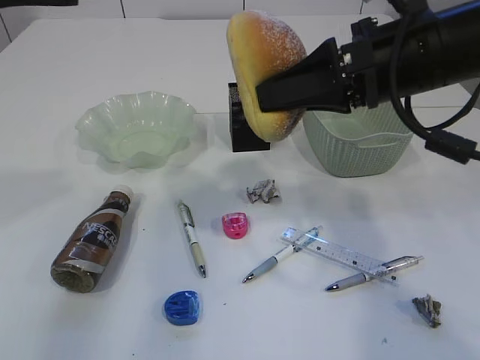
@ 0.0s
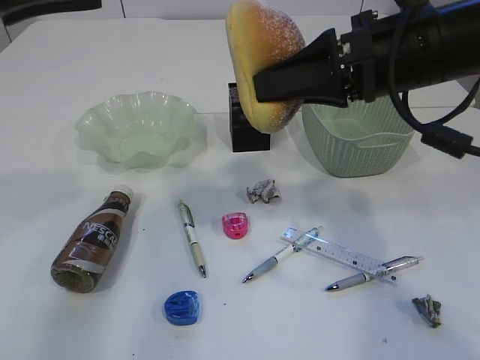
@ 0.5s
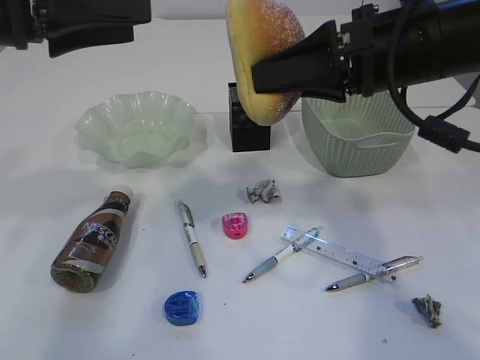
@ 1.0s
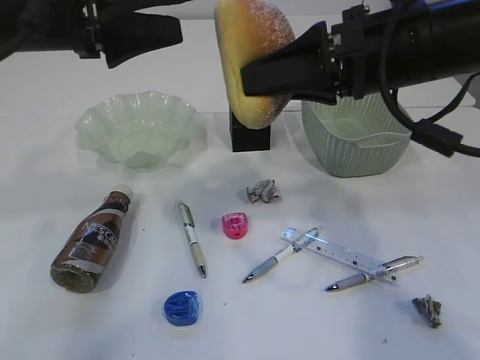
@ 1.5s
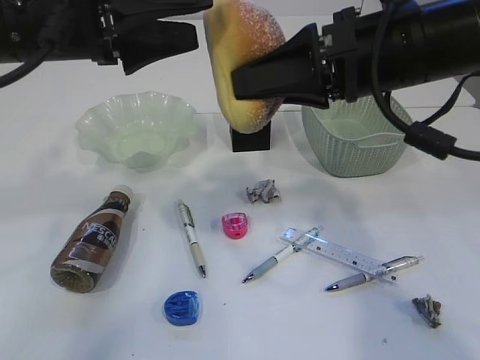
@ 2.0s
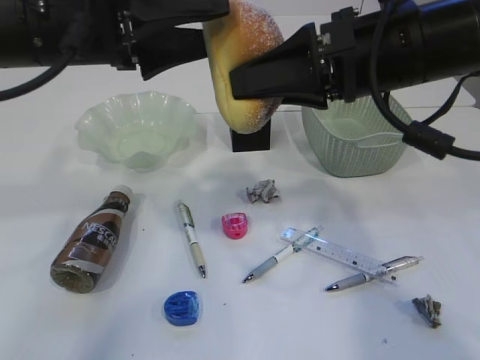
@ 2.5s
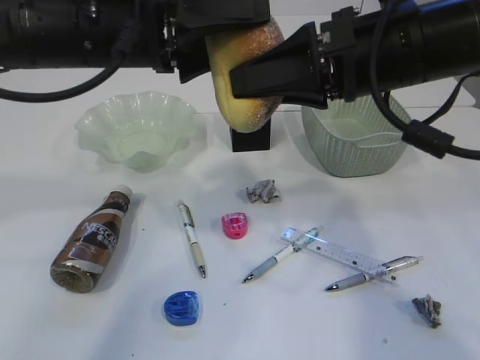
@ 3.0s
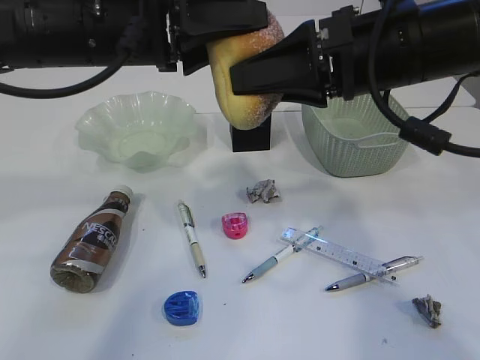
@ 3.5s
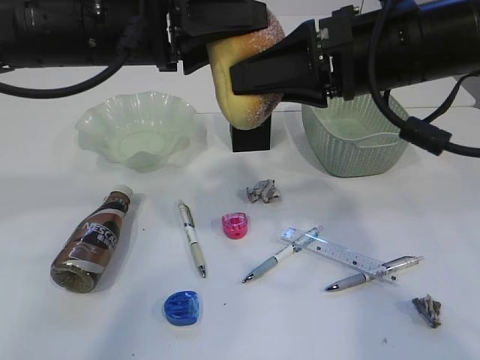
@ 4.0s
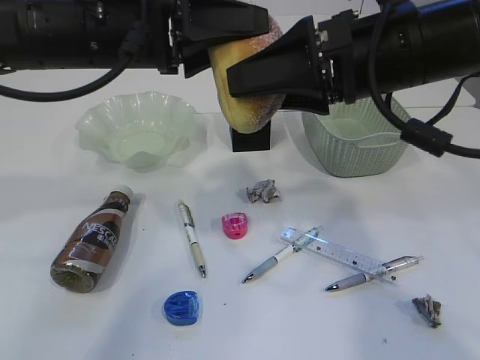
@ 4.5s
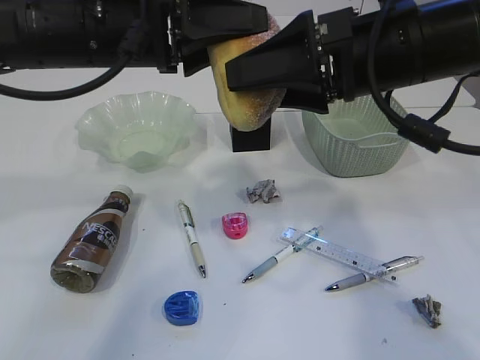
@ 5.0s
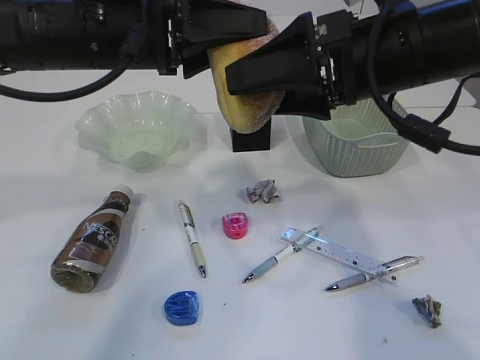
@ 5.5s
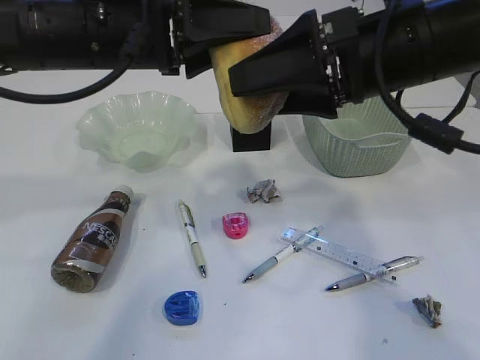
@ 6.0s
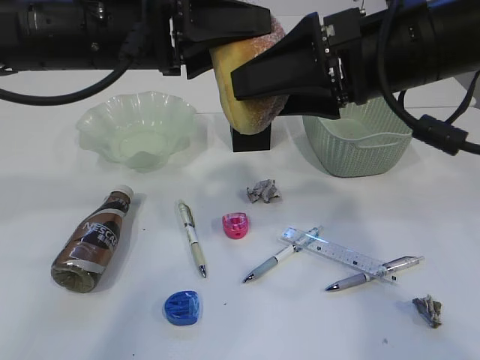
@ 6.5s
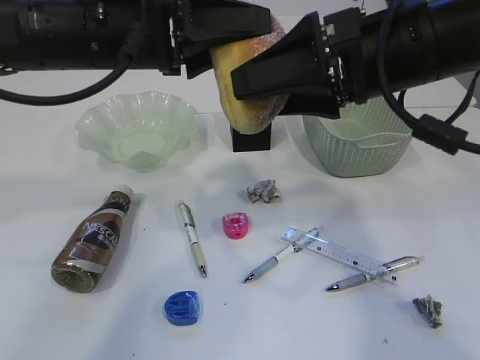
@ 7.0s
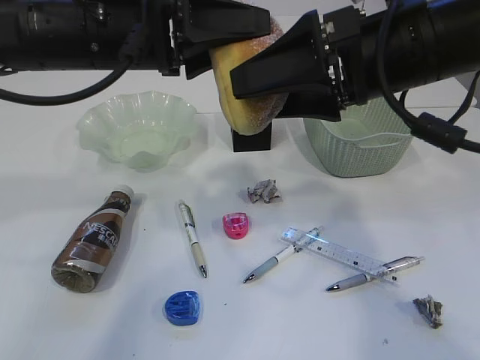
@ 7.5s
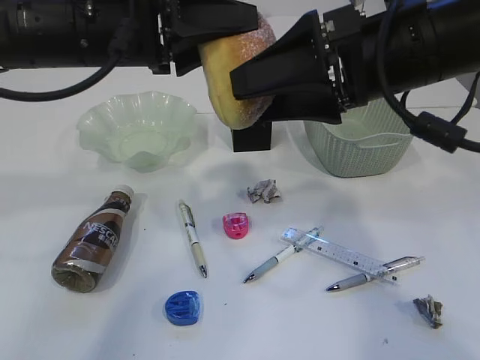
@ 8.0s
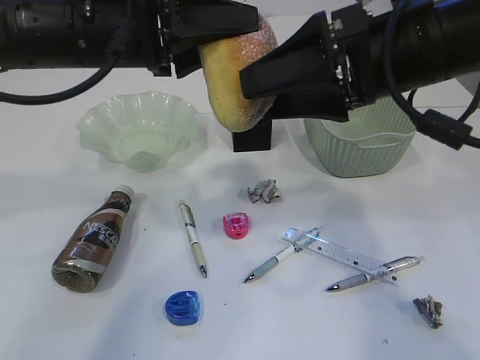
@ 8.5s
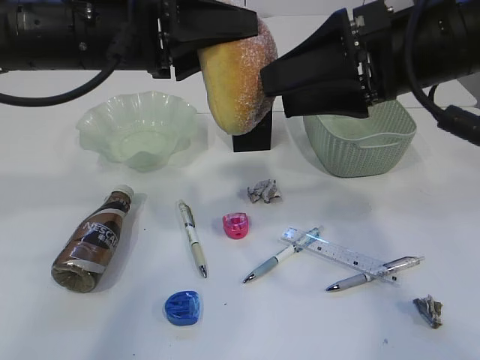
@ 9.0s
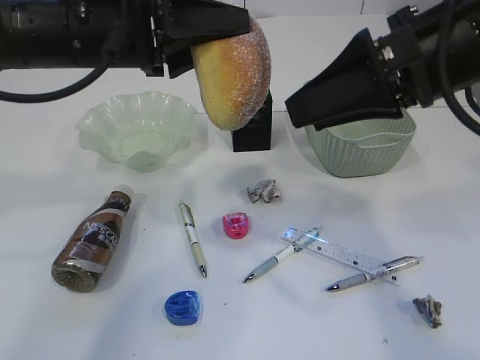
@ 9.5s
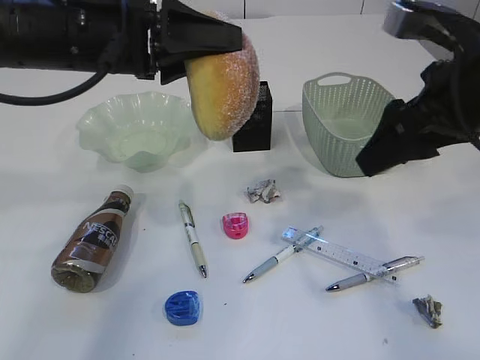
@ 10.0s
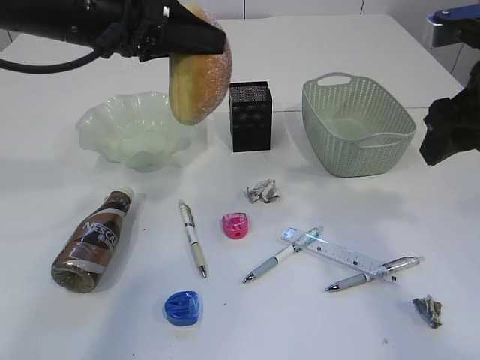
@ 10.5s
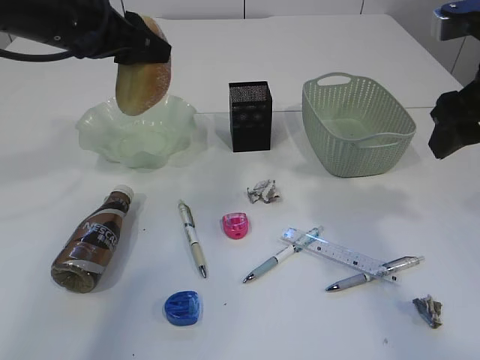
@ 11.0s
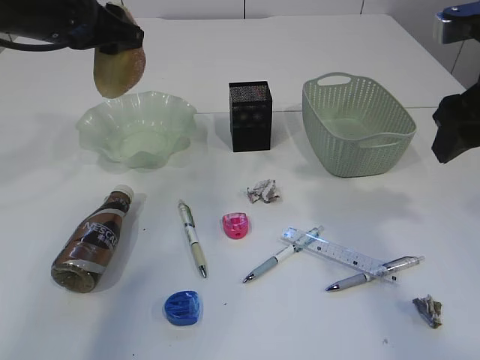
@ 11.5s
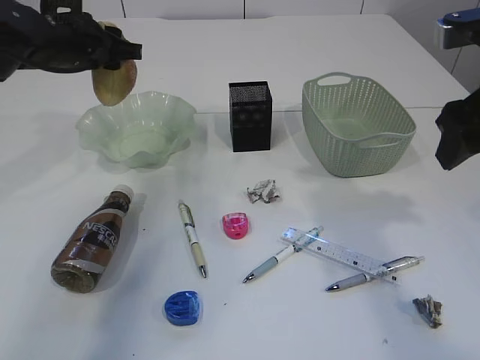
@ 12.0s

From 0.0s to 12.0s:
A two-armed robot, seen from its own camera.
Step, from 0.0s to 9.5s: Hand over the bread.
From 0.0s to 2.0s: The left gripper shifts approximately 10 cm downward and to the right, and opens its fingers.
From 2.0s to 4.0s: The left gripper moves roughly 5 cm, and closes up.
From 4.0s to 6.0s: The right gripper opens.
From 6.0s to 8.0s: Both grippers stay put.
From 8.0s to 10.0s: The right gripper moves to the right, some 5 cm.
From 10.0s to 12.0s: The left gripper moves forward and to the left, about 15 cm.

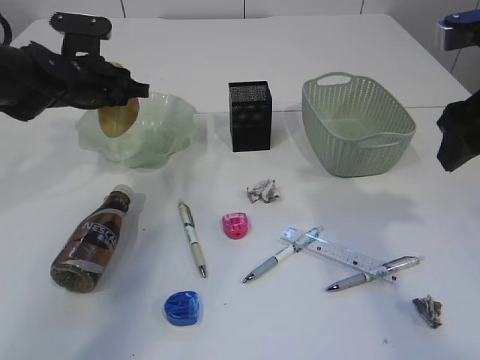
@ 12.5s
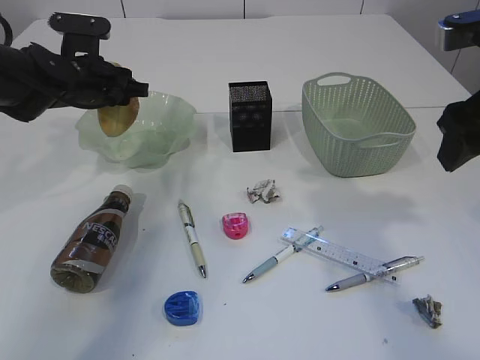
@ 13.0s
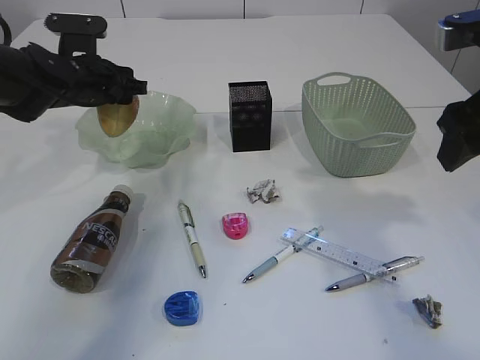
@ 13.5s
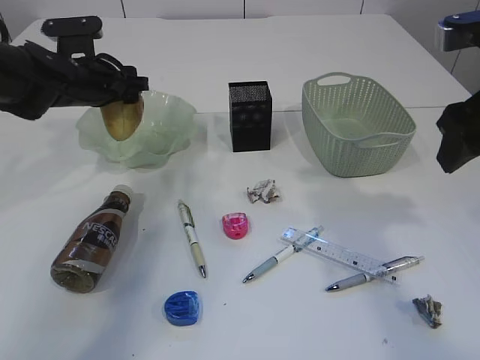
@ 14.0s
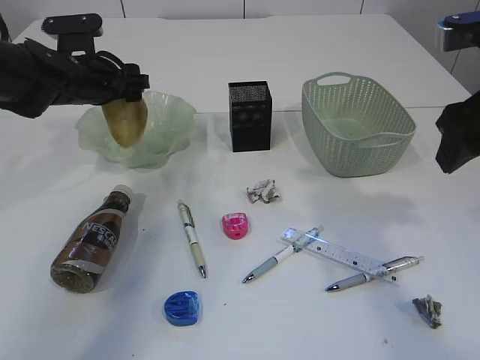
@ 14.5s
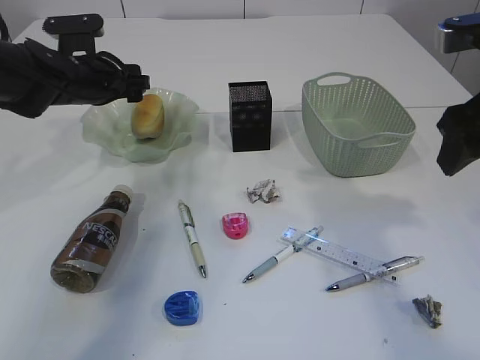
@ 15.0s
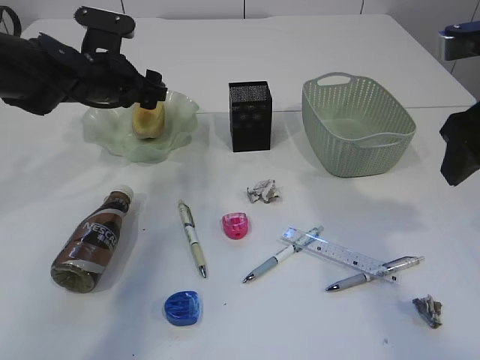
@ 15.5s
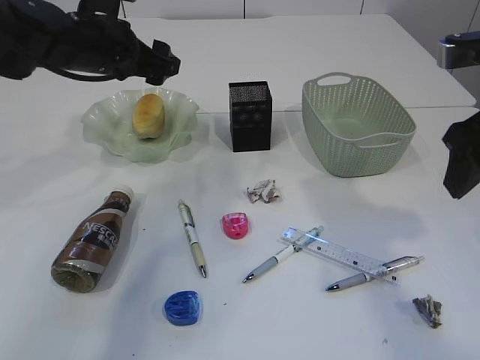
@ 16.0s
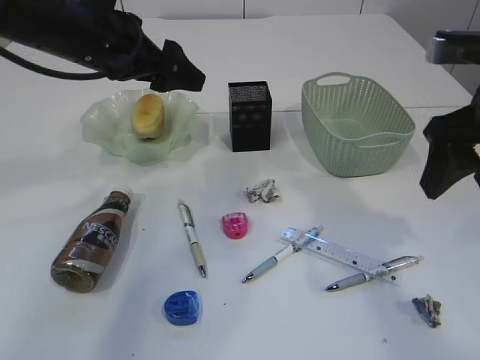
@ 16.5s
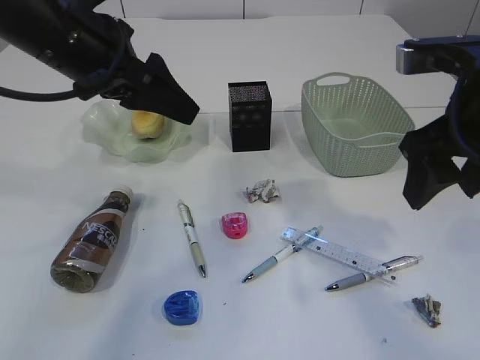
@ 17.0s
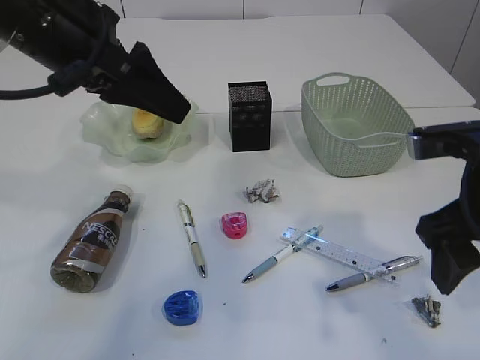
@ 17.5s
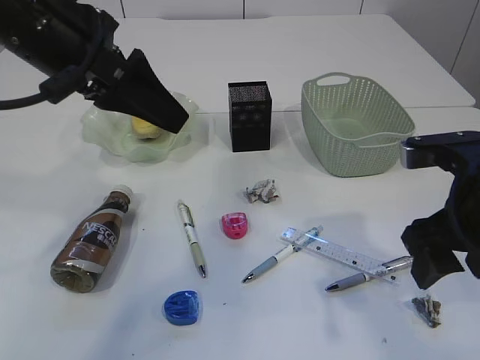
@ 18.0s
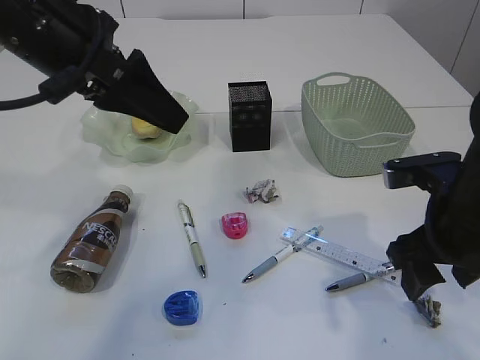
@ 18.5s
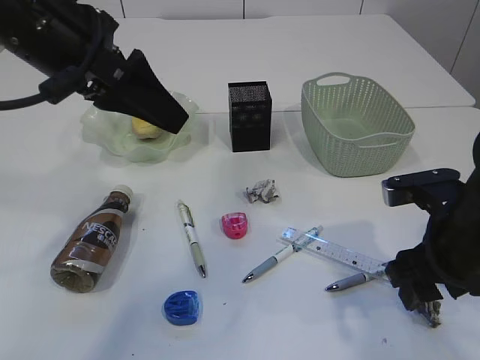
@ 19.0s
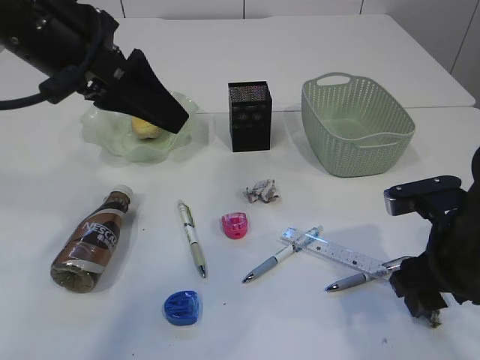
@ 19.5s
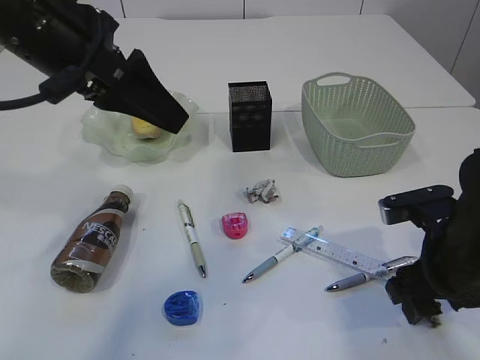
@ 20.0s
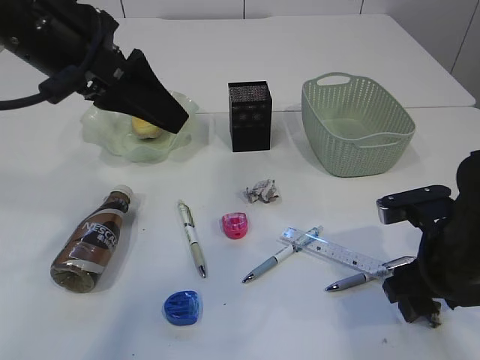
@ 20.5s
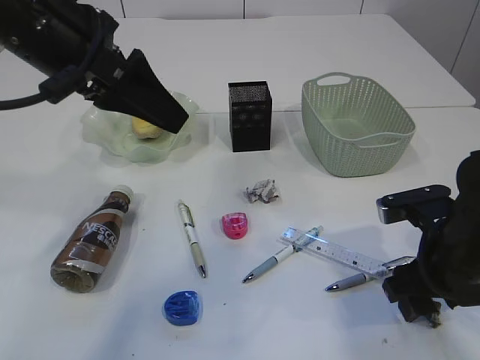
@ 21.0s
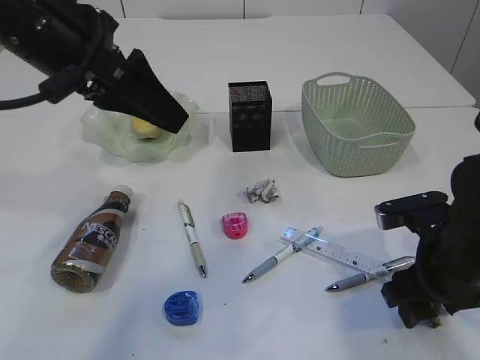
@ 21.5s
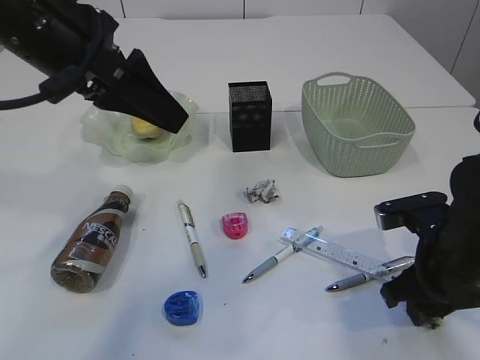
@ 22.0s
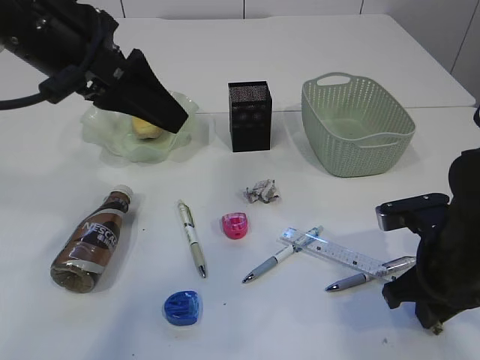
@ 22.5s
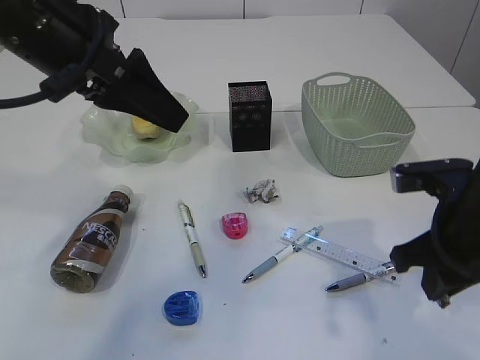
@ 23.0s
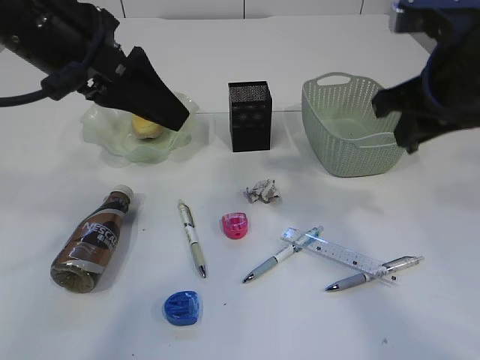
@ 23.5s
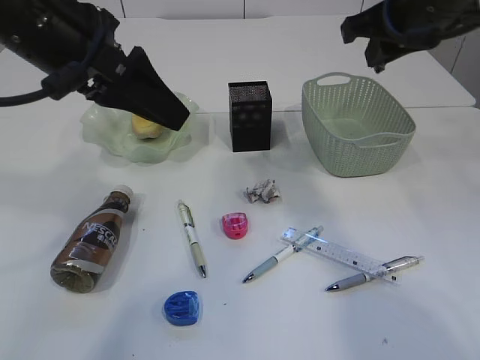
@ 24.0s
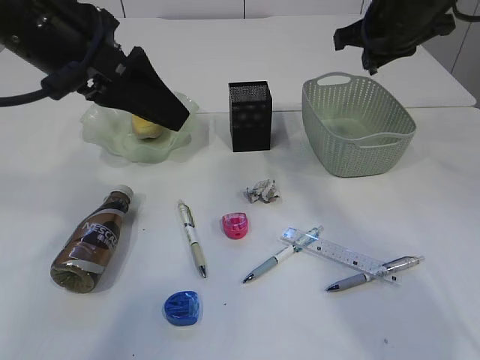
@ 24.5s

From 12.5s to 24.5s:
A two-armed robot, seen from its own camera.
Step, from 12.5s to 16.5s: place the bread in the plate.
Step, from 17.0s to 23.0s: Pick up the waste paper.
From 12.5s to 14.5s: The left gripper opens its fingers.
From 14.5s to 16.5s: The left gripper shifts about 15 cm upward, backward and to the right.
From 16.5s to 18.5s: The left gripper travels backward by approximately 10 cm, and closes. The right gripper moves downward, approximately 10 cm.
From 18.5s to 20.5s: The right gripper shifts roughly 5 cm downward.
From 20.5s to 22.5s: The right gripper closes its fingers.
From 22.5s to 24.5s: The right gripper goes roughly 25 cm forward and upward.

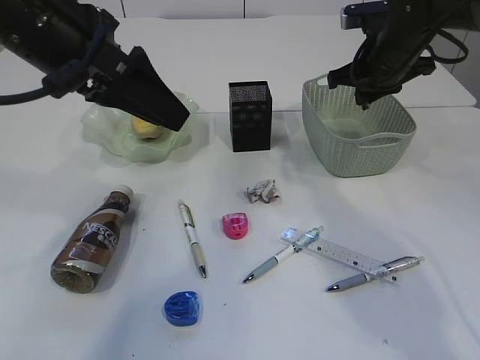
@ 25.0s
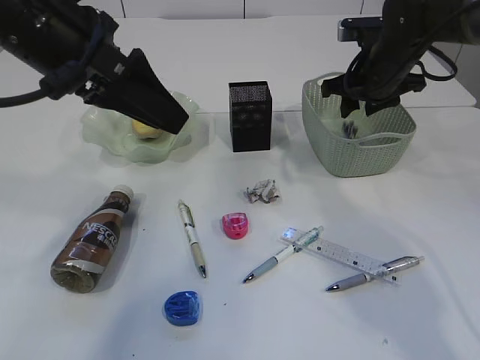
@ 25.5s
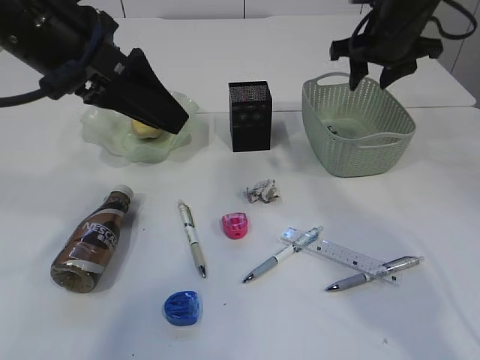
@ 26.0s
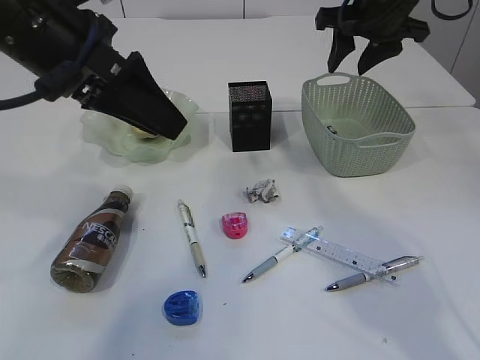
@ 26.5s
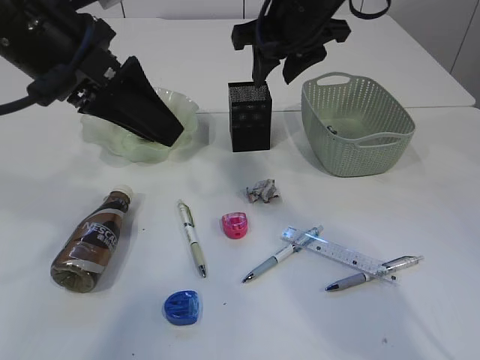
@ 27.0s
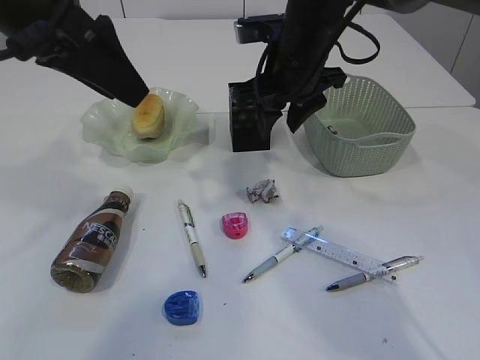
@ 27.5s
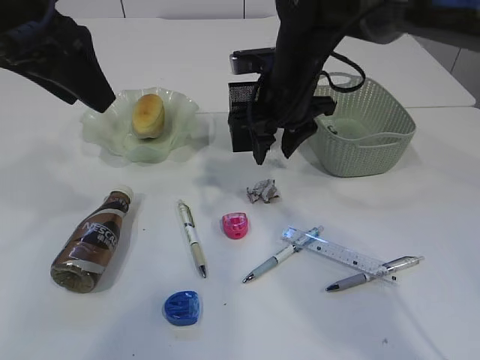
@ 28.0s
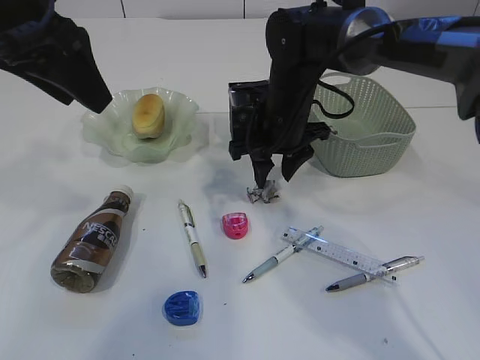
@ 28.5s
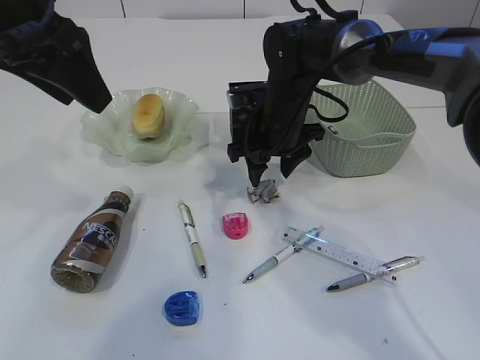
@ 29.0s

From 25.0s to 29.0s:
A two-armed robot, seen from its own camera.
From 25.0s to 27.0s: The right gripper heads to the left and upward, covering roughly 15 cm, and opens.
From 27.0s to 29.0s: The left gripper shifts by some 5 cm. Meanwhile the right gripper goes some 15 cm downward.
